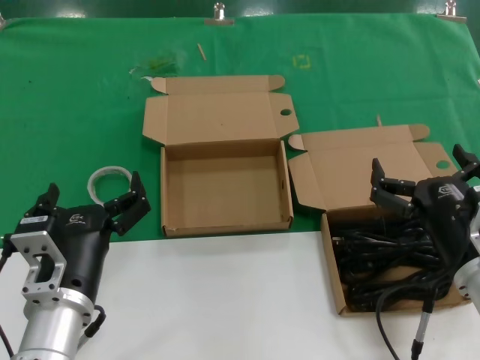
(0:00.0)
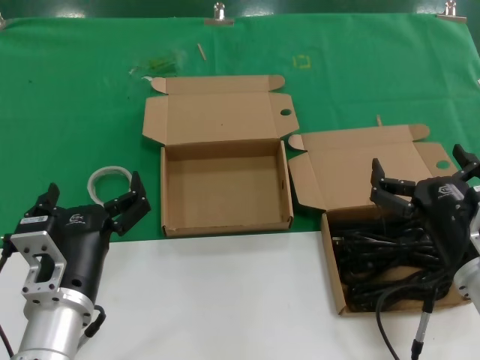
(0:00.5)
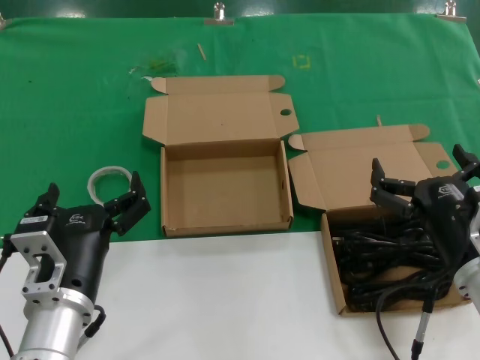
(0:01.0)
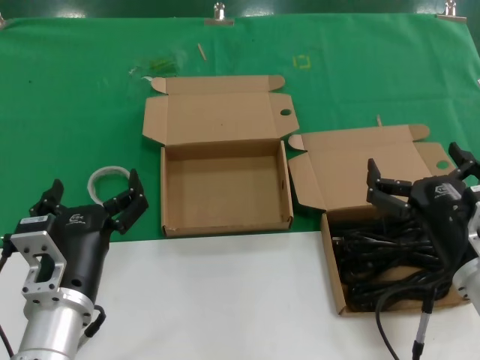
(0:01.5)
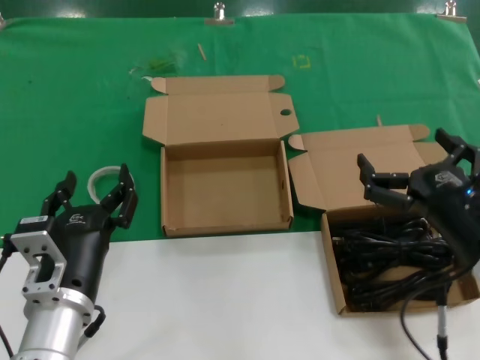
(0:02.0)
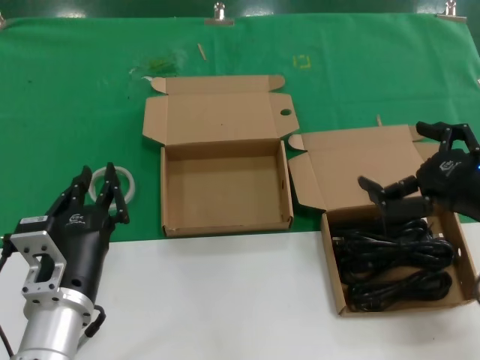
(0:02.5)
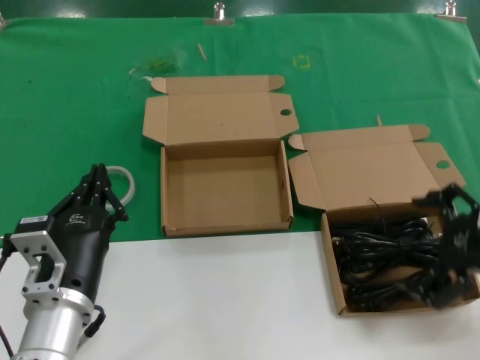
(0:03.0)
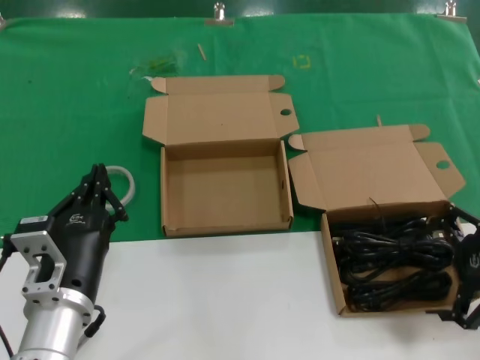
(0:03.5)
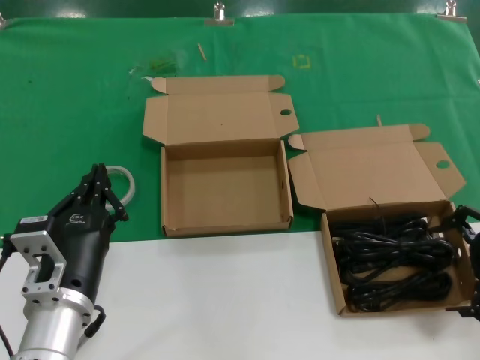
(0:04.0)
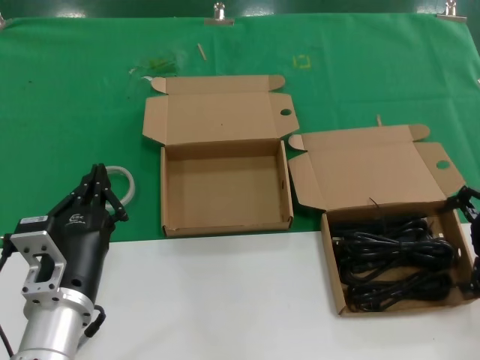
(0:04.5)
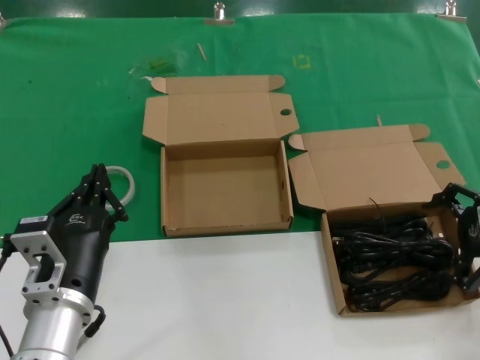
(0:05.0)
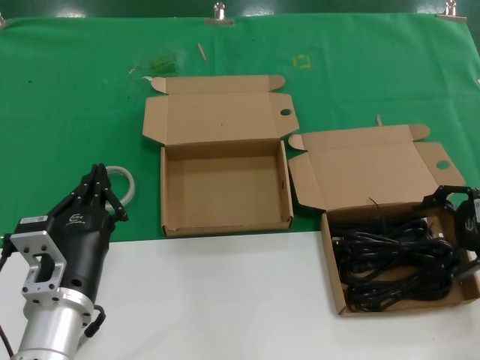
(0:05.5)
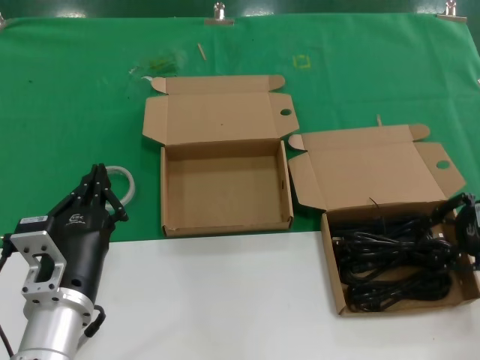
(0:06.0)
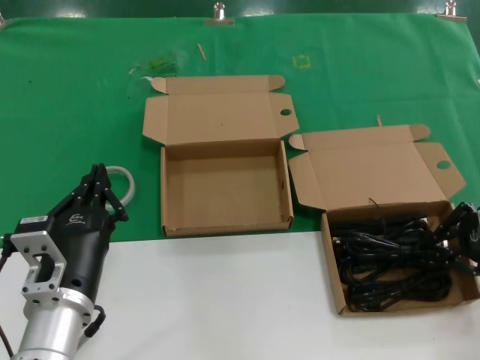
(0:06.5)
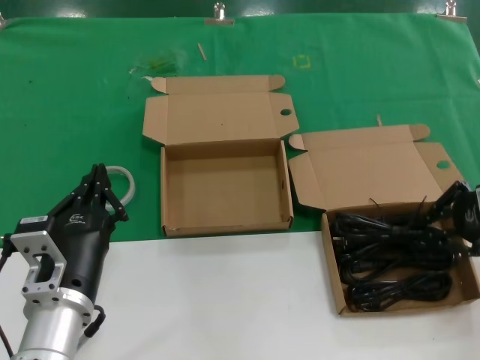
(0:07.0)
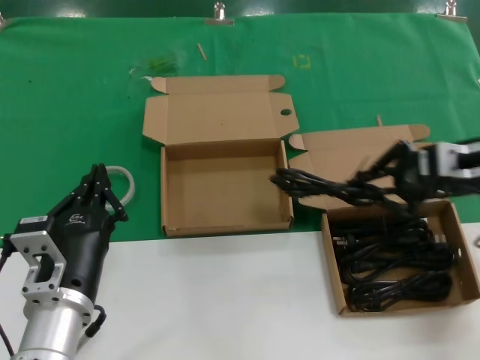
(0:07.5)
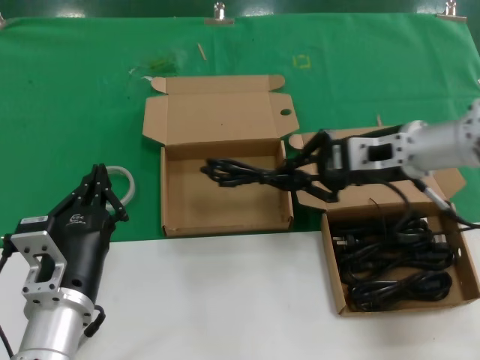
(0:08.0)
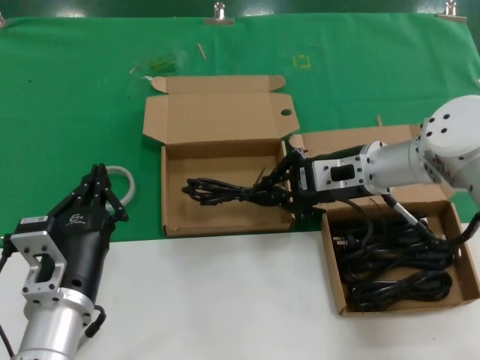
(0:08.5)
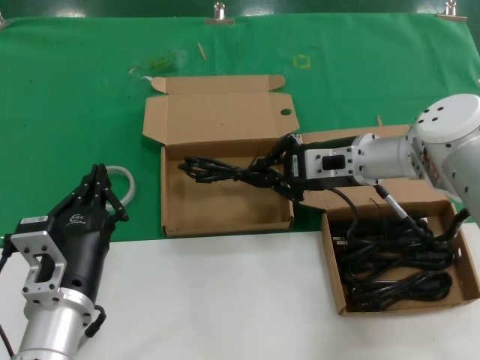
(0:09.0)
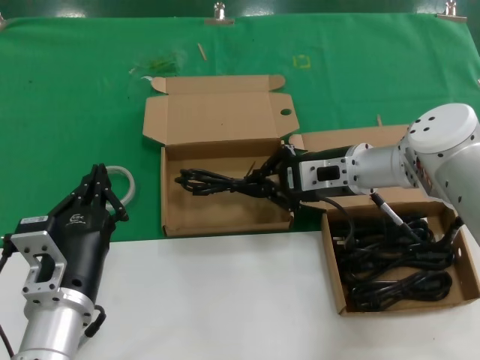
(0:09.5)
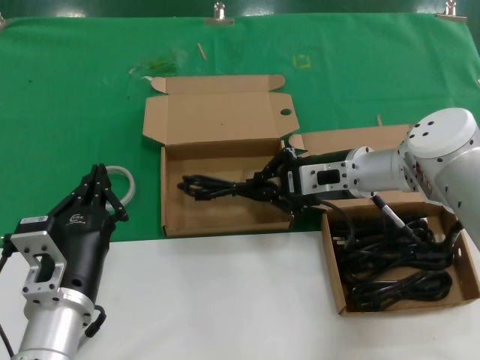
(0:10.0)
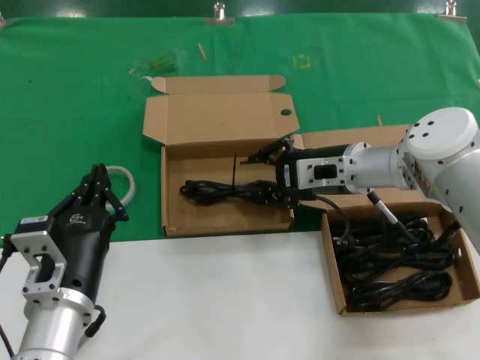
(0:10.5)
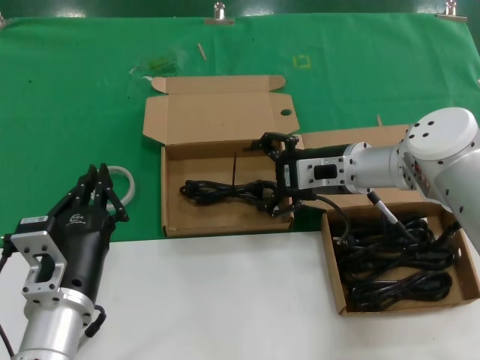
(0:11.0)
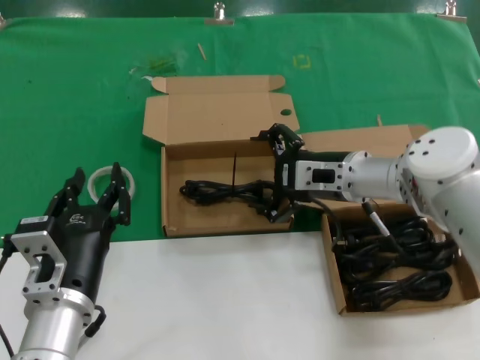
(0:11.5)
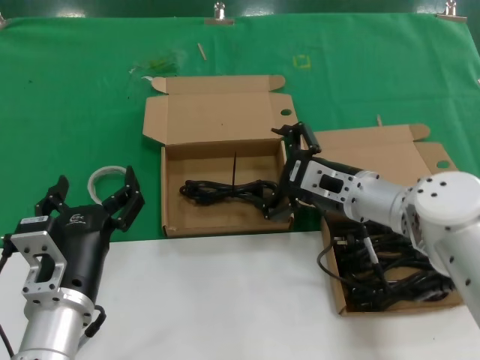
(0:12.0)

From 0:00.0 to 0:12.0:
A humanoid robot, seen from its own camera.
Task of the whole recording: take the parts from the box containing them and put them into an empty box.
Step, from 0:00.0 to 0:06.0: Grasp the data cable.
Step, from 0:06.5 to 0:10.0: Place the data cable in the another box.
From 0:00.0 to 0:02.0: There are only small adjustments of the hands.
From 0:02.0 to 0:04.0: The right hand heads to the right, forward and upward, covering about 15 cm.
From 0:04.0 to 0:06.0: The hands move only a little.
From 0:06.0 to 0:08.0: The right hand heads to the left and forward, covering some 20 cm.
From 0:08.0 to 0:10.0: The right hand heads downward and to the left, covering some 10 cm.
From 0:10.0 to 0:12.0: The right hand moves roughly 5 cm.

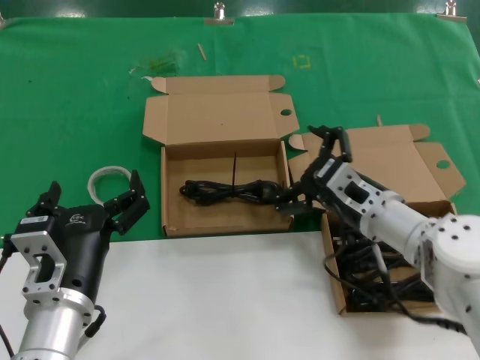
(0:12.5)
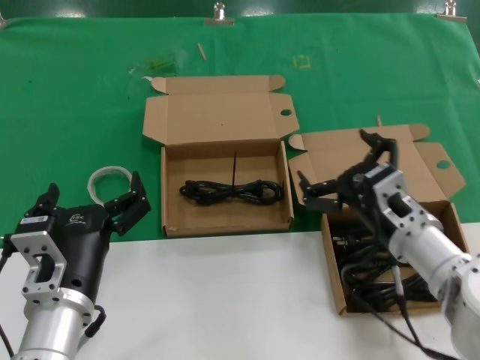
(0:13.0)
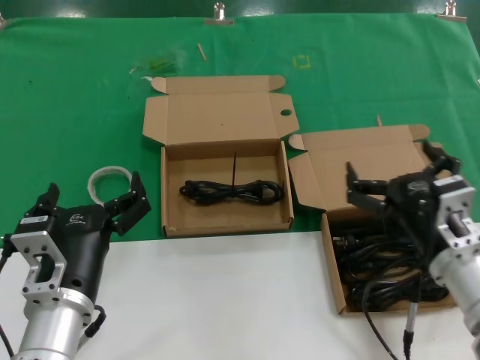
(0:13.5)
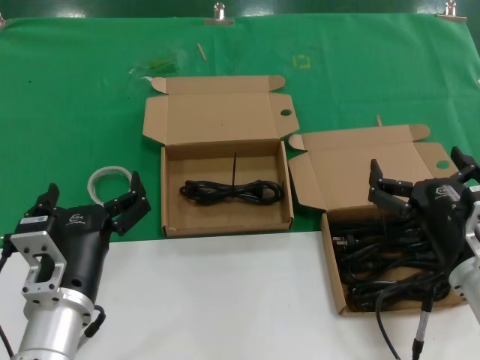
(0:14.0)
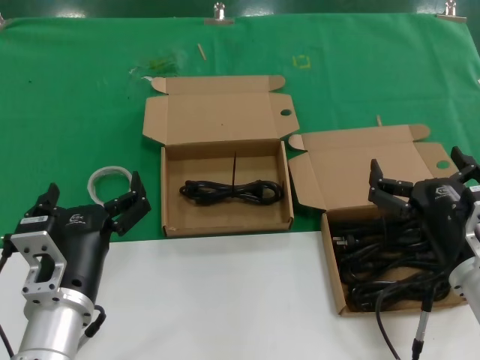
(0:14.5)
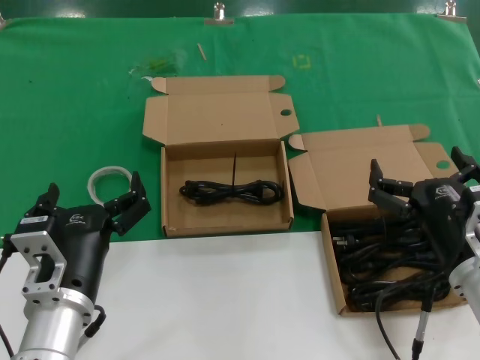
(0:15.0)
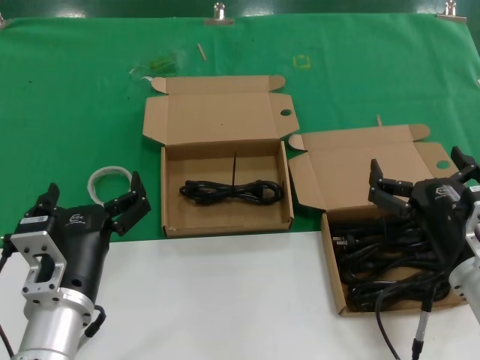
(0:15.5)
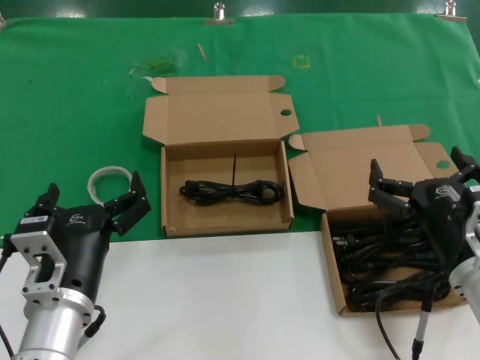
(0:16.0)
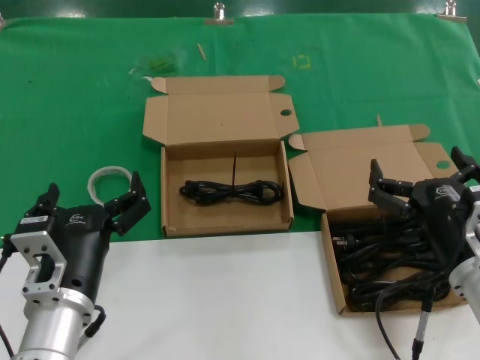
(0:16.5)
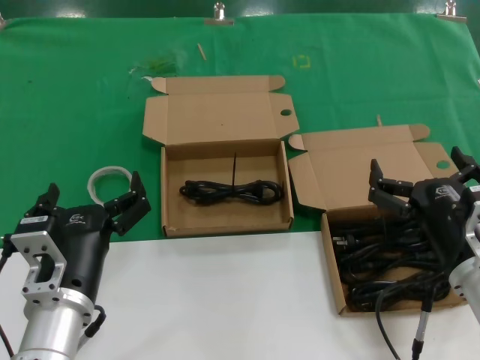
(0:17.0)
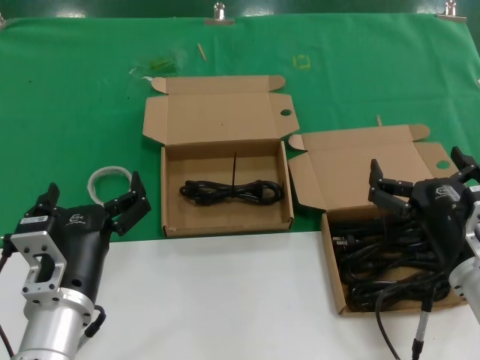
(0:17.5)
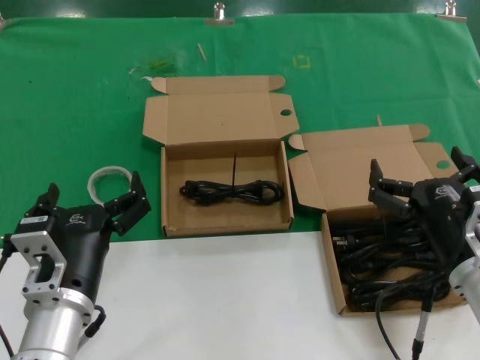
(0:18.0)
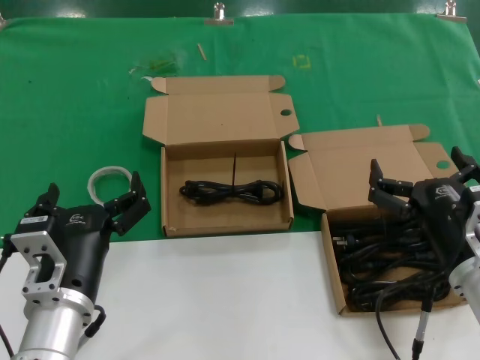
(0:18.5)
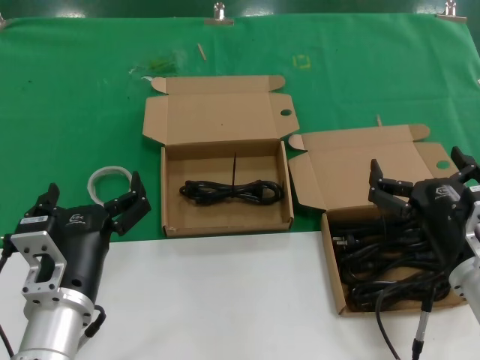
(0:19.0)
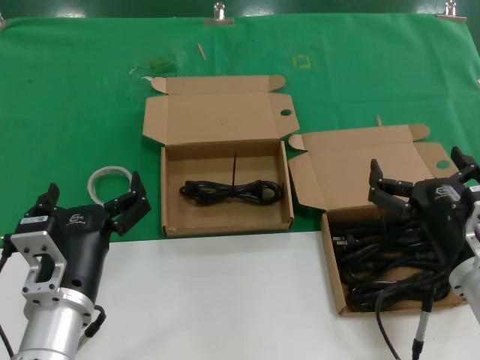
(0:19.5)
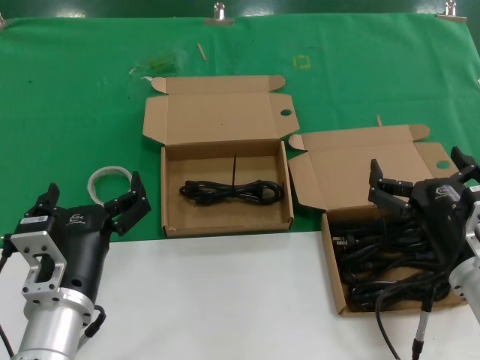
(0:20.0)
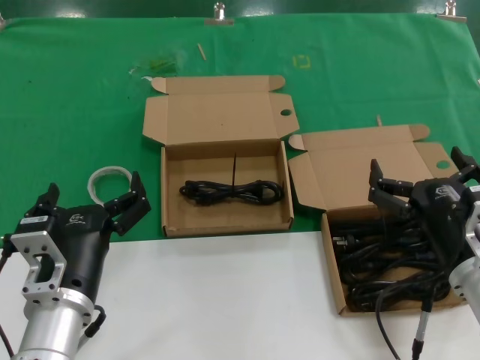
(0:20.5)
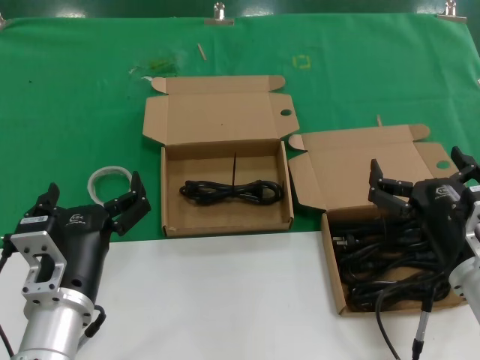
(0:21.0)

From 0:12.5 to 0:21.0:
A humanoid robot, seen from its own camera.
Task of the whole recording: take the parts from the box containing them and put them into an empty box.
From 0:12.5 to 0:14.5: The right hand travels backward by roughly 15 cm.
From 0:14.5 to 0:21.0: Neither hand changes place.
